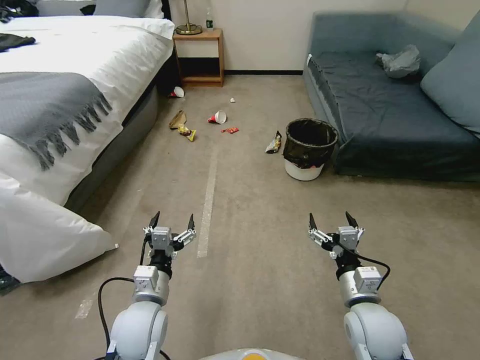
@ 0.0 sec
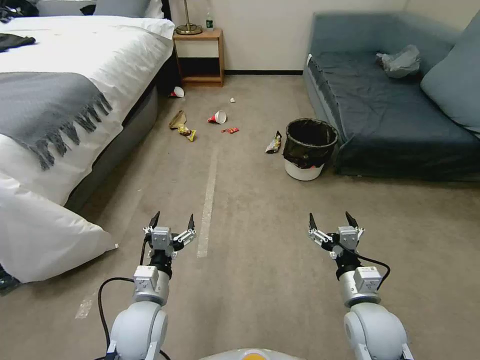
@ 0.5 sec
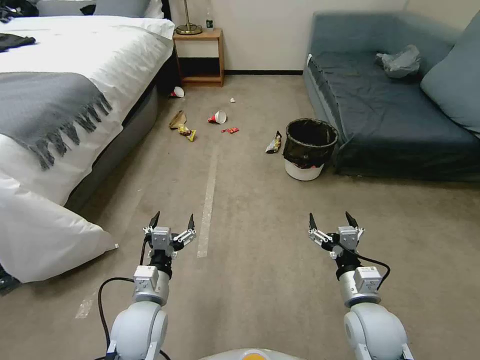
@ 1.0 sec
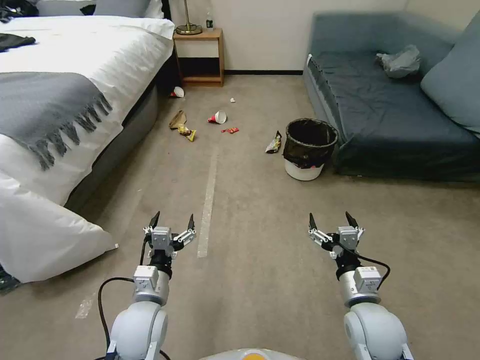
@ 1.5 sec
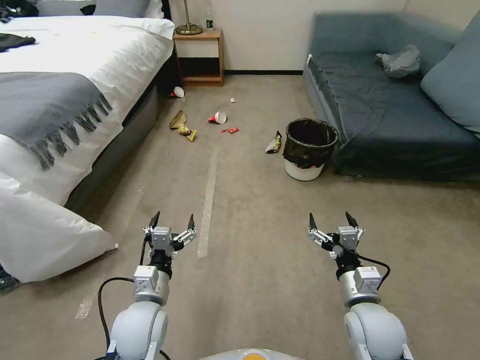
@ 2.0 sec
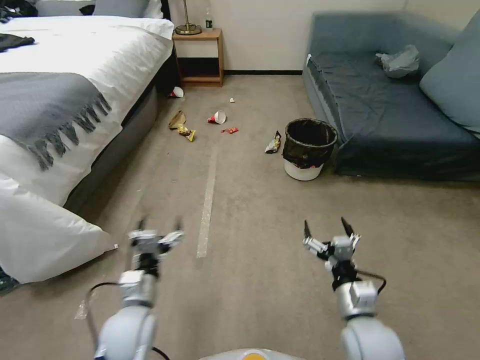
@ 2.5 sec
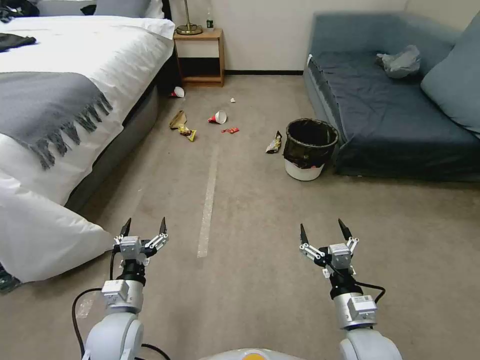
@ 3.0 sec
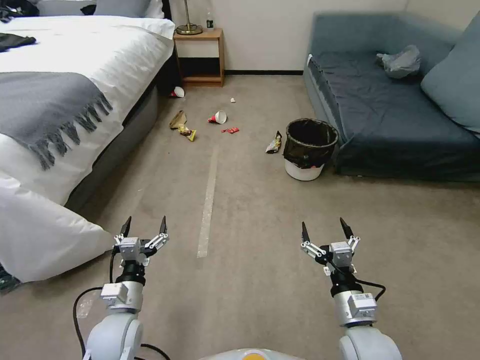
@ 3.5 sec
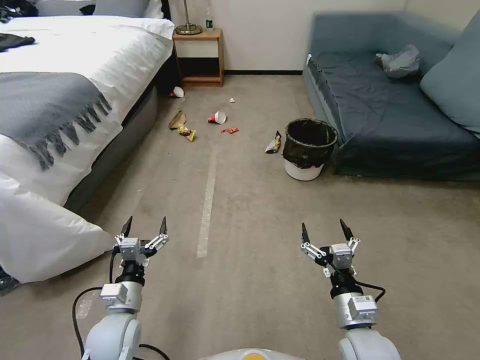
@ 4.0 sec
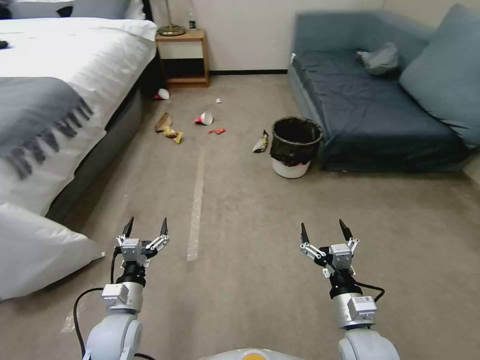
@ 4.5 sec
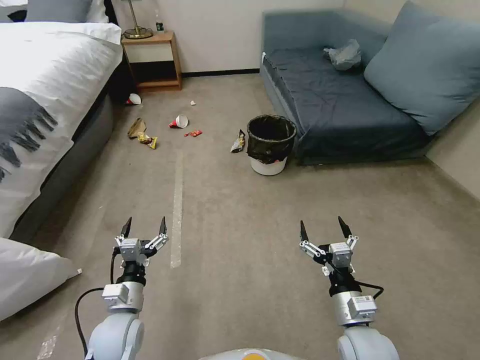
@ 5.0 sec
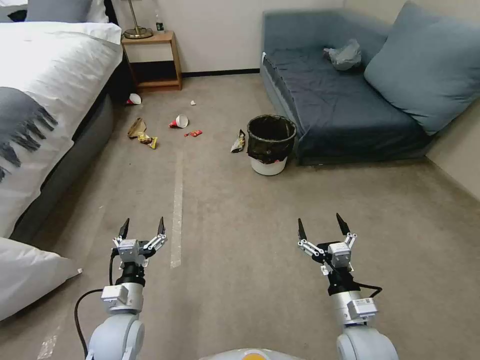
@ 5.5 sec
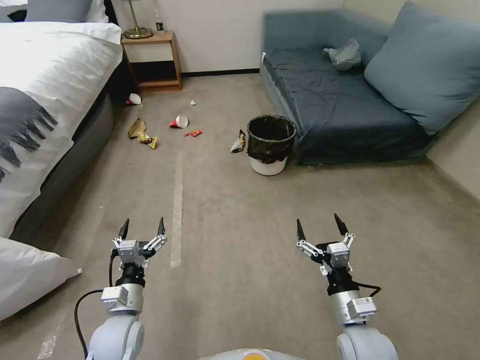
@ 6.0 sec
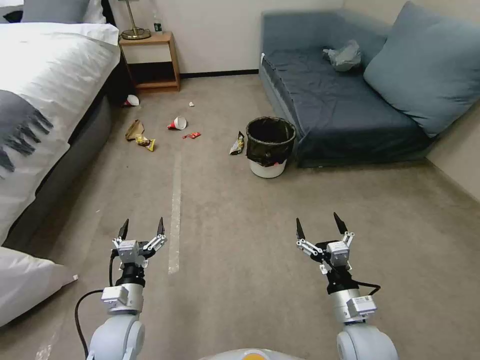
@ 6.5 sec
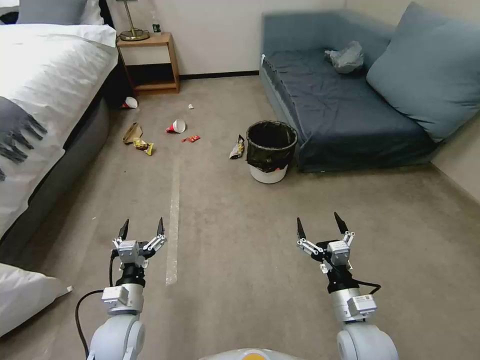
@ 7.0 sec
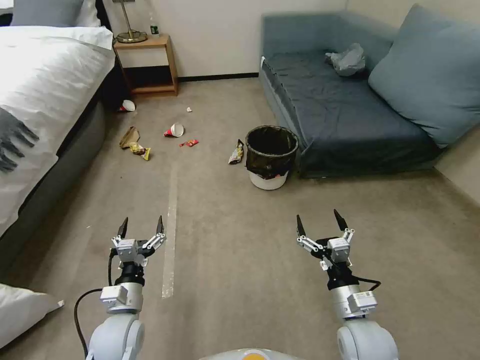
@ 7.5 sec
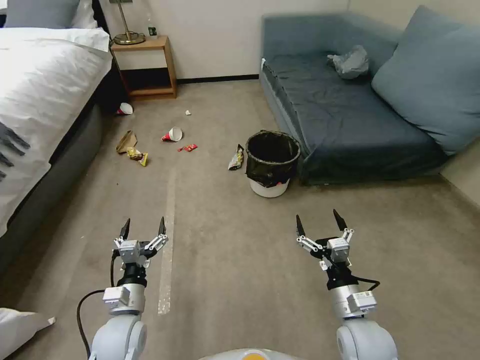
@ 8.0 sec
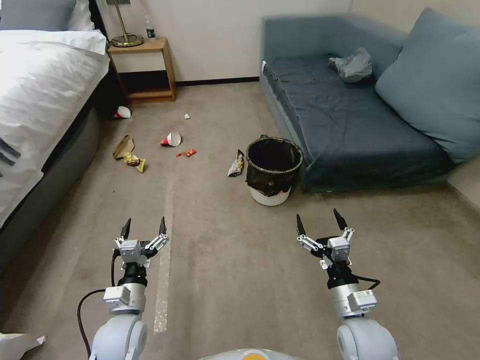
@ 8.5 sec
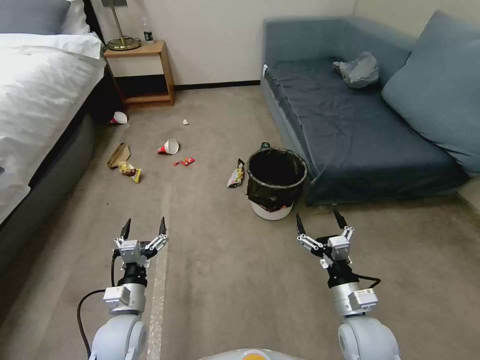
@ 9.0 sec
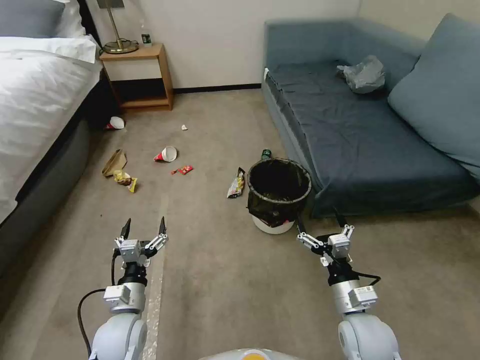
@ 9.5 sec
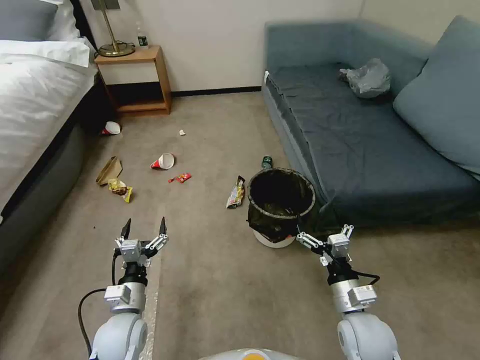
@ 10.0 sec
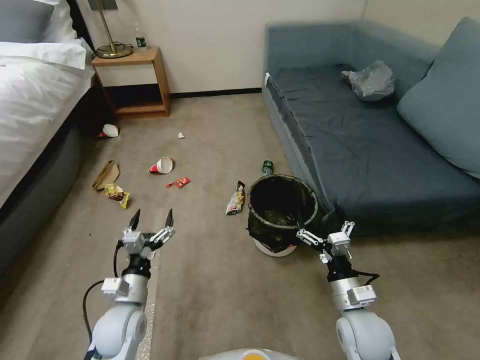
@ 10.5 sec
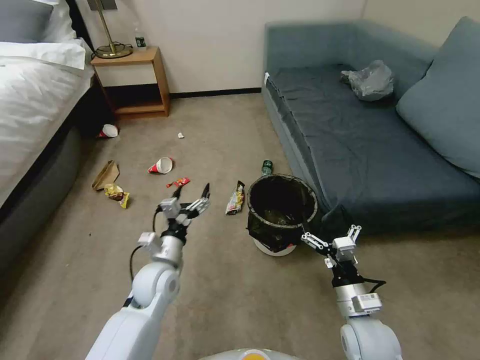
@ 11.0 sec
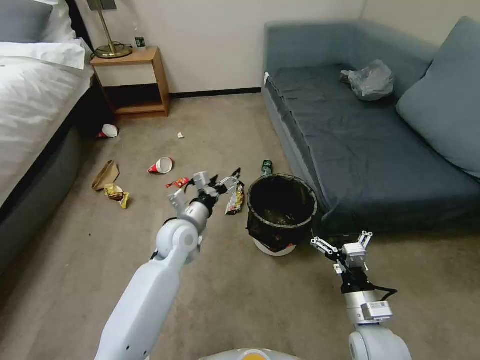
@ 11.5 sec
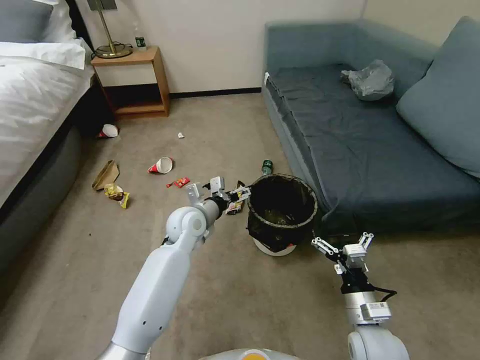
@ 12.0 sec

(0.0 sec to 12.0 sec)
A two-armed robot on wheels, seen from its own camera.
Task of the whole recording: Pick up the trash can from the floor.
2.0 sec - 4.0 sec: The left gripper travels to the left and downward by approximately 10 cm.
10.0 sec - 12.0 sec: The left gripper travels forward, to the right and upward by approximately 25 cm.

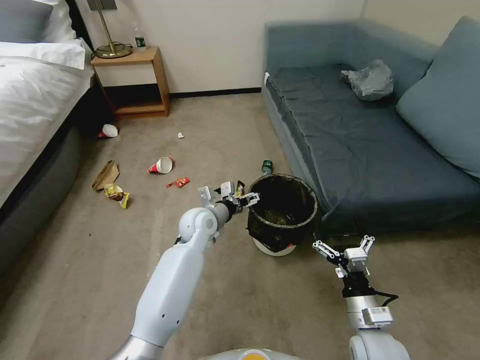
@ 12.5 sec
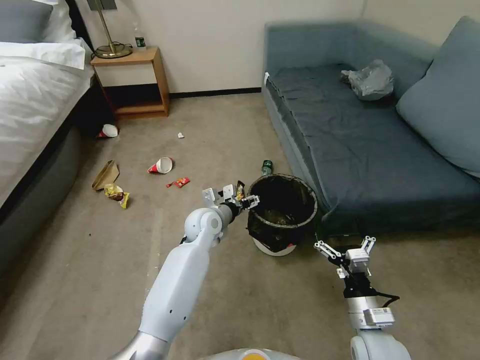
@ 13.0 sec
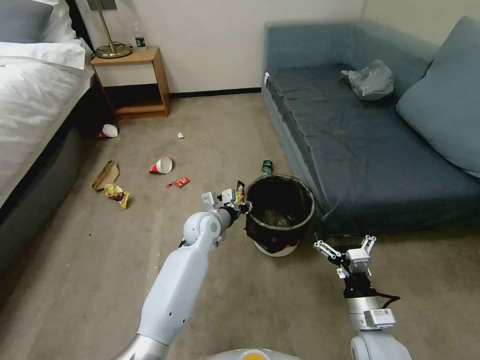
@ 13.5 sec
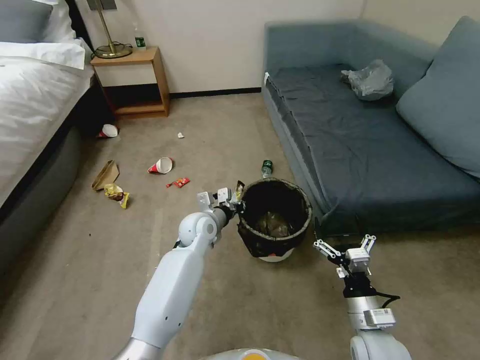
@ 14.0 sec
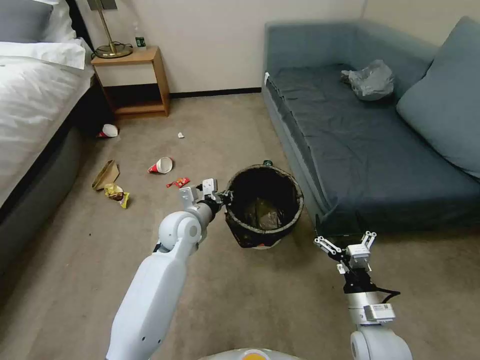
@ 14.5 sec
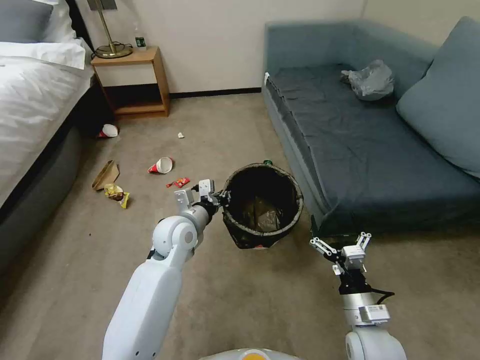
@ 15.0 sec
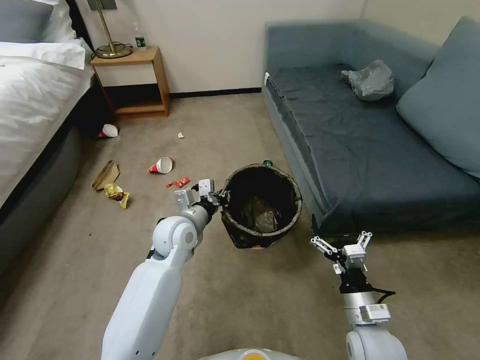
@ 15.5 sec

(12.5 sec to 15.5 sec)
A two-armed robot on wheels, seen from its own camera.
Task of the whole recording: Pick up the trash can from the floor.
12.5 sec - 14.0 sec: The left gripper closes its fingers.
14.0 sec - 15.5 sec: The left gripper heads upward, covering roughly 5 cm.
